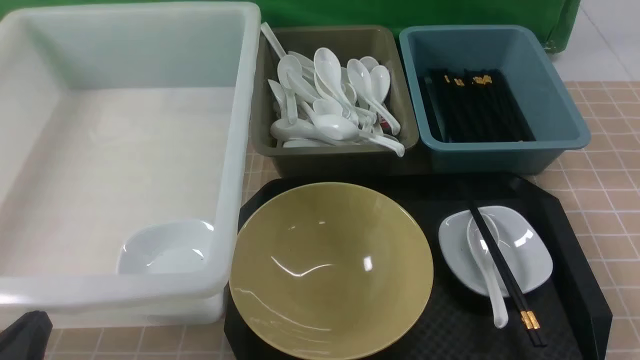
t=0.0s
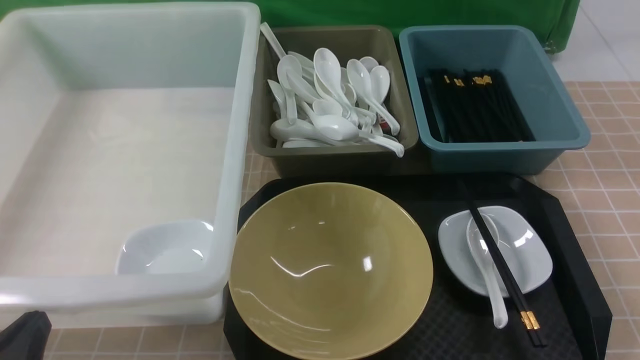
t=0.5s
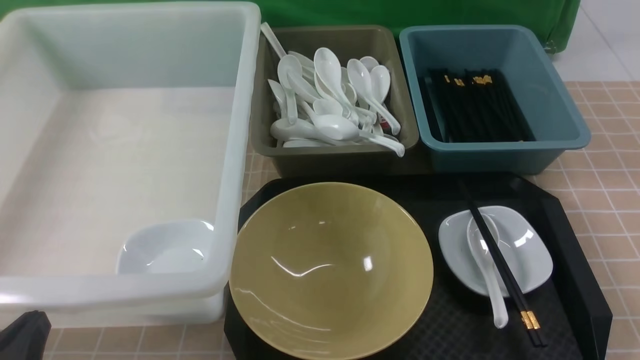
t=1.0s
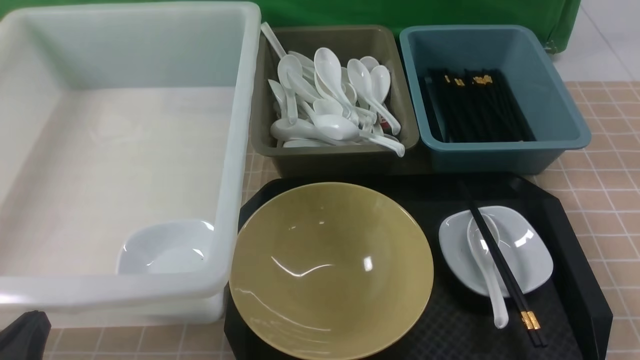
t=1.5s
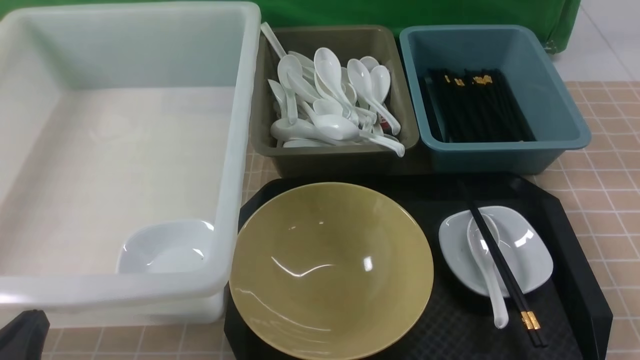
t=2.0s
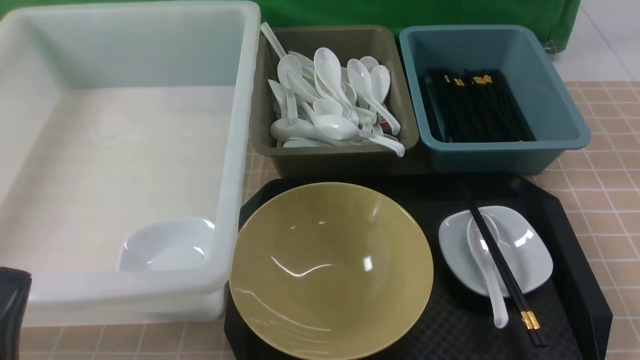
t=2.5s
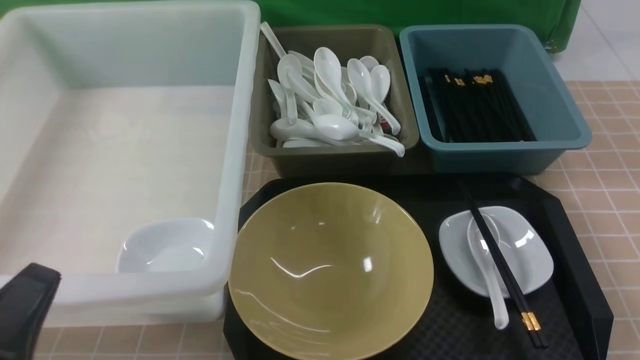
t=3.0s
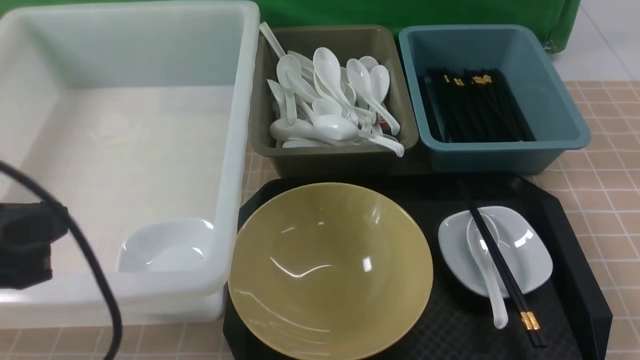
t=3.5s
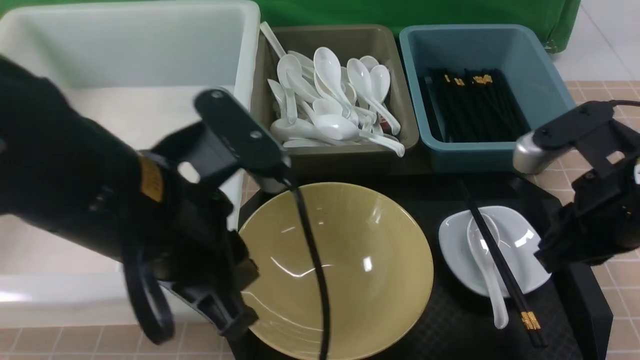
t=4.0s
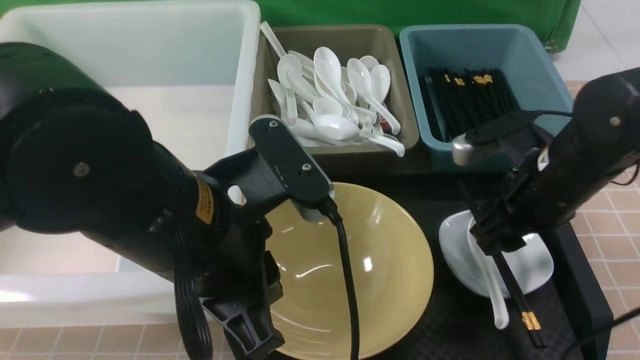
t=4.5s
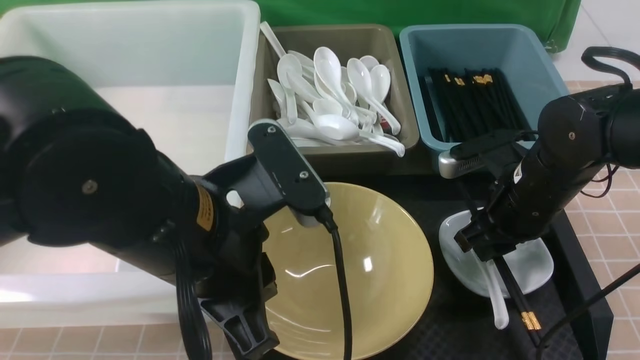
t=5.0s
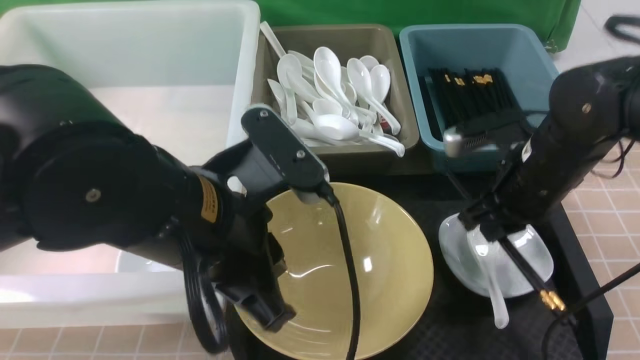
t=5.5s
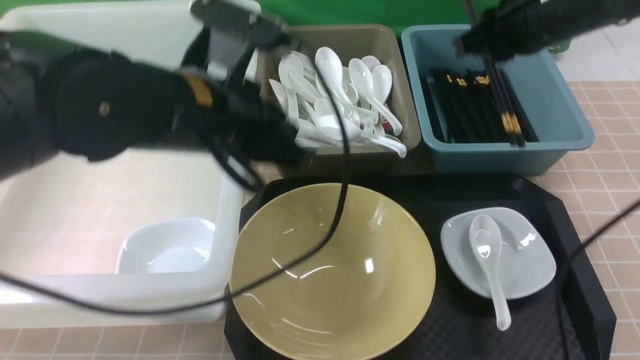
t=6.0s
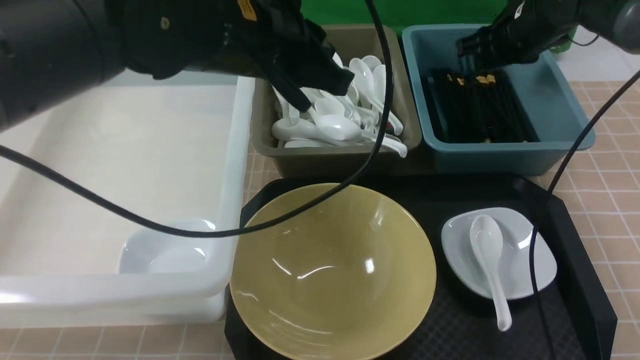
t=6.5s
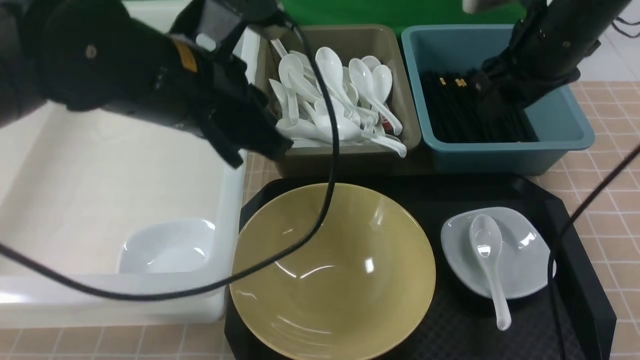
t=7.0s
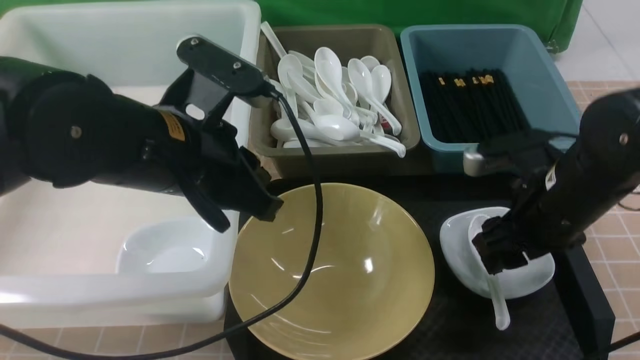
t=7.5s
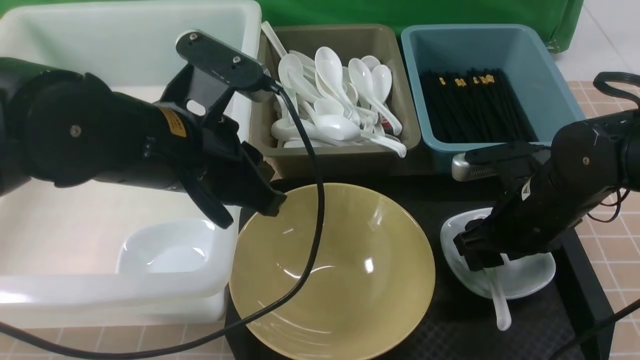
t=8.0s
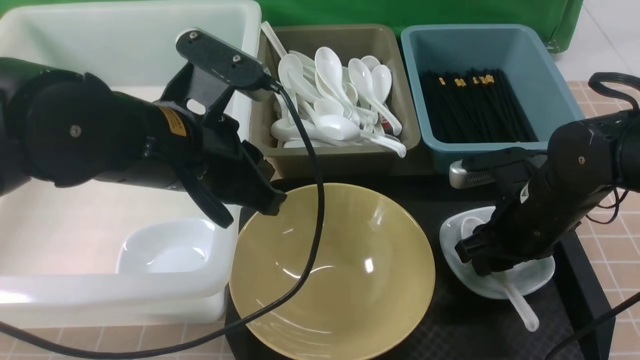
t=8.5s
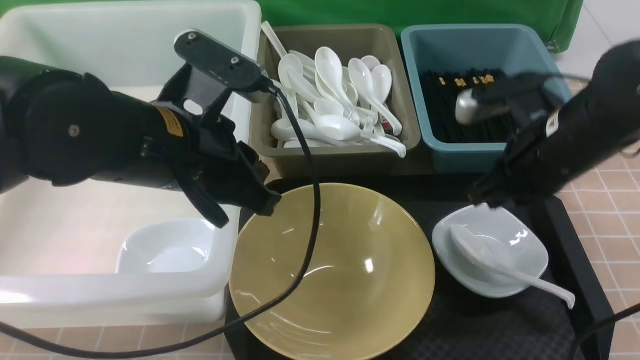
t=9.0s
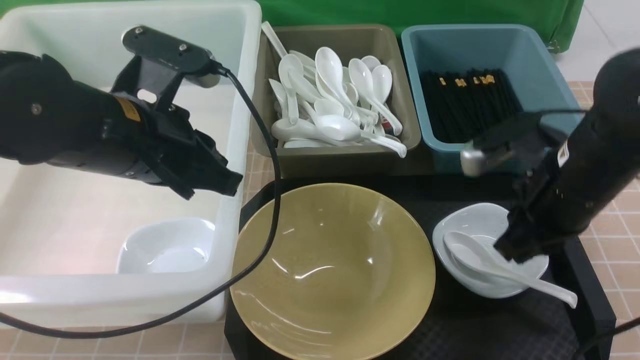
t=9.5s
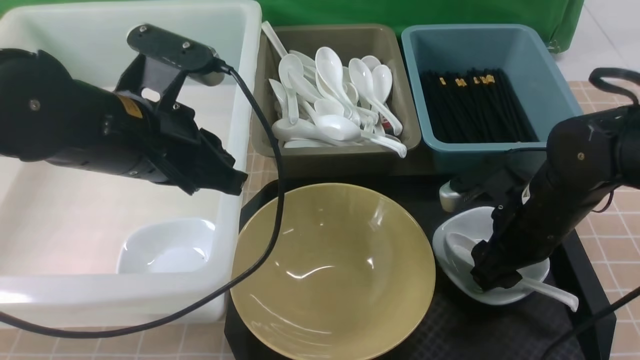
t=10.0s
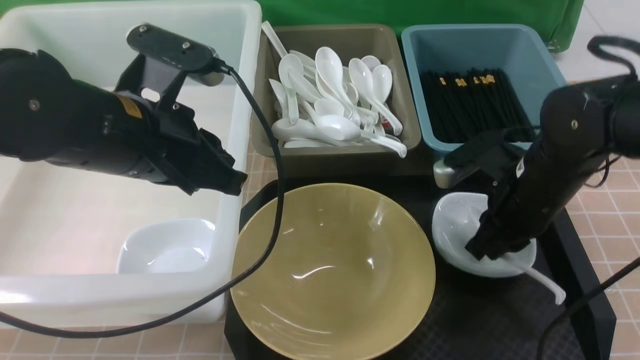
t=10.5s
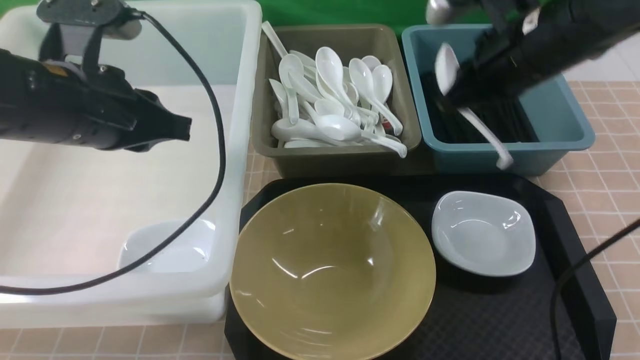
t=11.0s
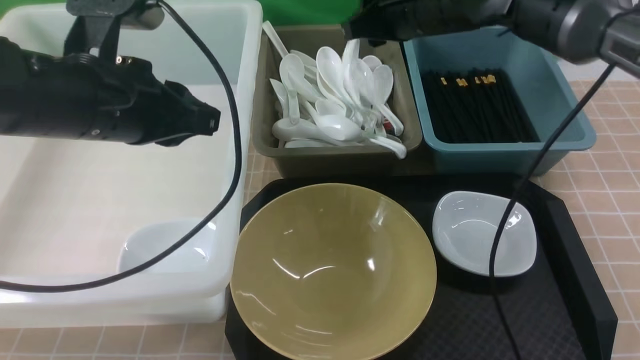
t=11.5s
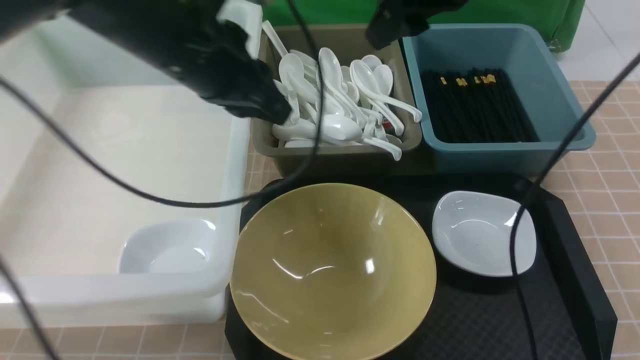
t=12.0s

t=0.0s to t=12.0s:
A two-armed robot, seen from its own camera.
Task of the whole recording: on brown table put chopsticks spoon bowls plates into blue grey white boxes.
Step, t=0.0s to t=5.5s: use the right arm to grab the chopsticks.
Step, t=6.0s to t=6.5s: use the right arm to put the chopsticks into the small storage box on the right.
Step, t=7.0s to t=10.5s: use the right arm to grab the soup spoon in the middle.
Step, t=11.0s to t=11.5s: use the right arm to put the soup spoon into the small storage box in the middle.
t=0.0s to t=2.0s: The two grippers keep their place.
t=2.0s to t=4.0s: The right gripper heads forward, upward and to the left, covering roughly 20 cm. The left gripper moves upward, to the right and forward, roughly 25 cm.
t=4.0s to t=6.0s: The left gripper travels forward by approximately 10 cm, while the right gripper shifts roughly 15 cm forward, and opens and closes again.
t=6.0s to t=8.0s: The right gripper shifts roughly 20 cm downward and backward, and opens.
t=8.0s to t=10.0s: The right gripper reaches approximately 10 cm upward, then returns, and closes and opens again.
t=10.0s to t=12.0s: The right gripper shifts about 25 cm upward and forward, and closes, then reopens. The left gripper heads forward, covering roughly 10 cm.

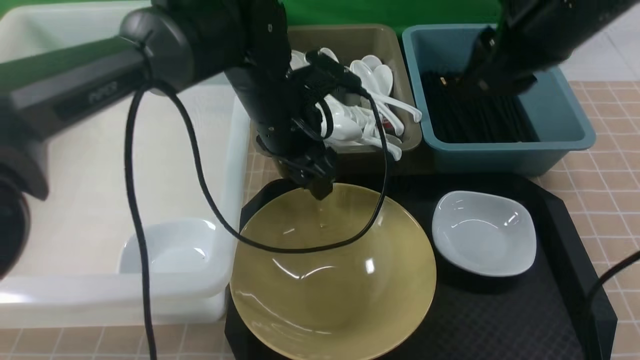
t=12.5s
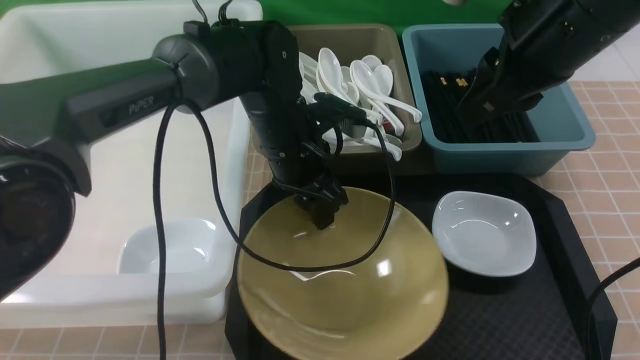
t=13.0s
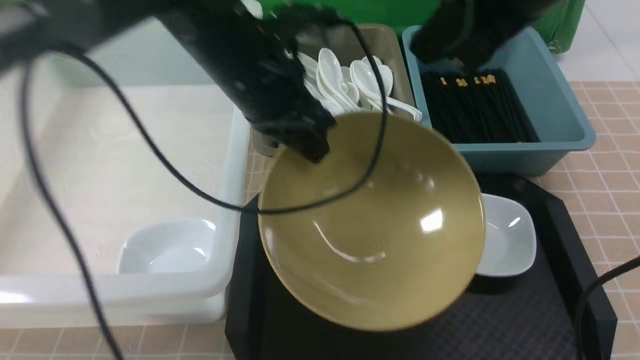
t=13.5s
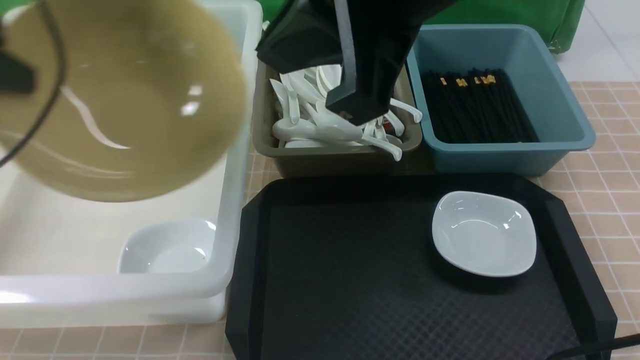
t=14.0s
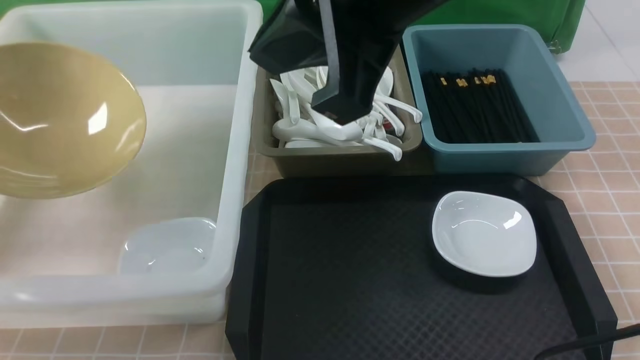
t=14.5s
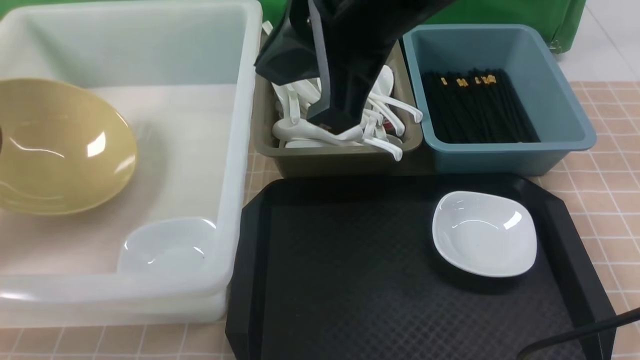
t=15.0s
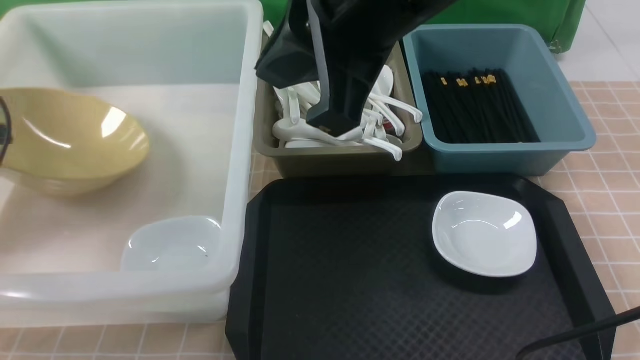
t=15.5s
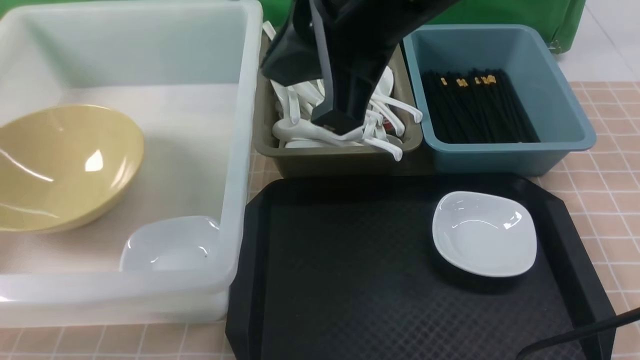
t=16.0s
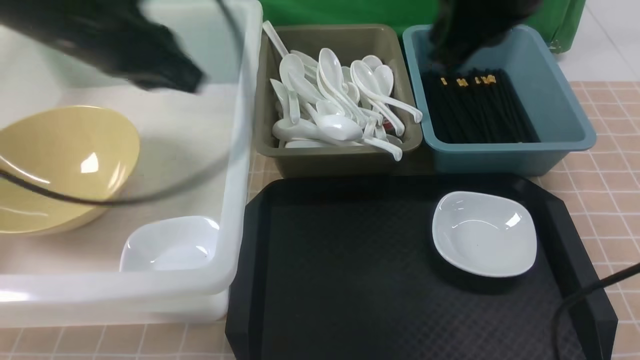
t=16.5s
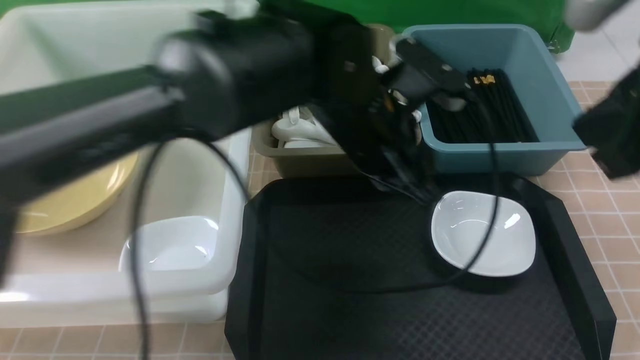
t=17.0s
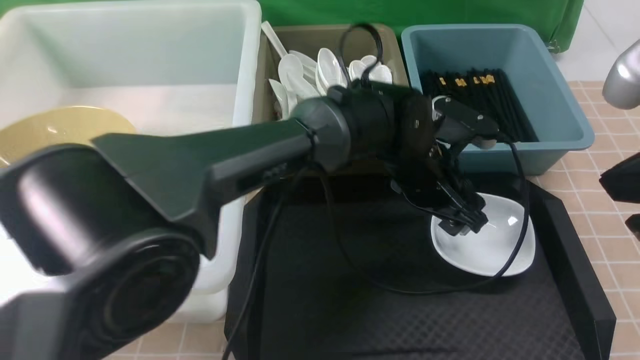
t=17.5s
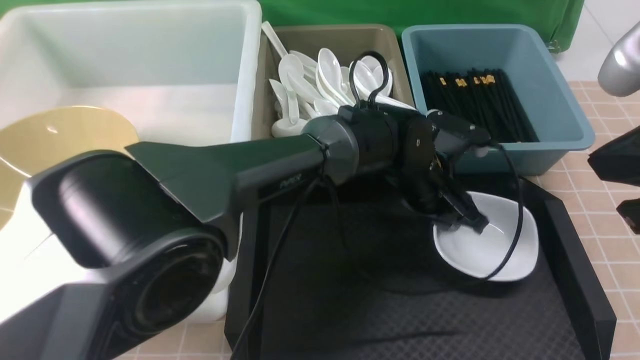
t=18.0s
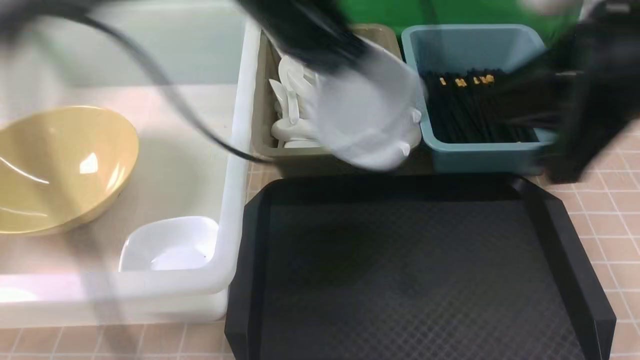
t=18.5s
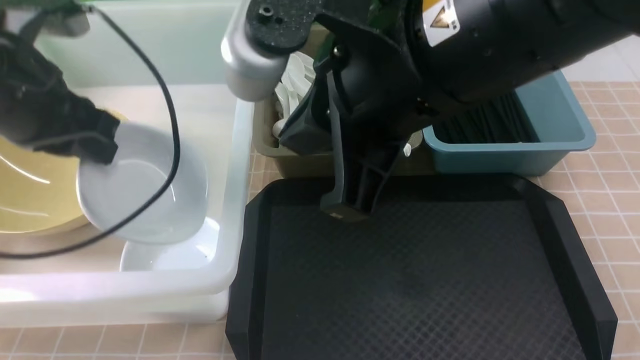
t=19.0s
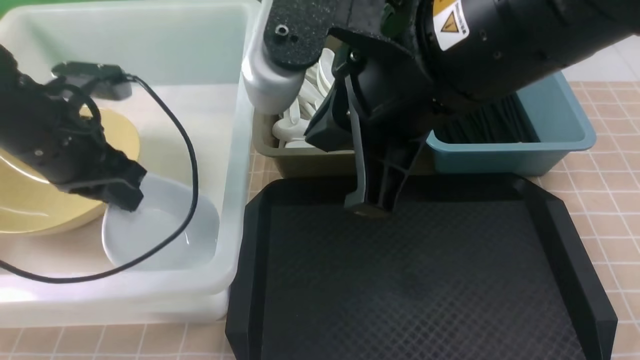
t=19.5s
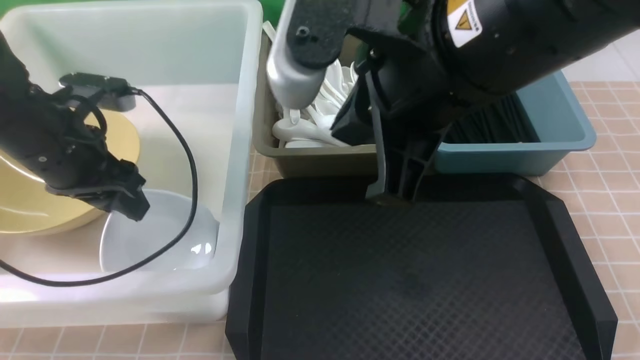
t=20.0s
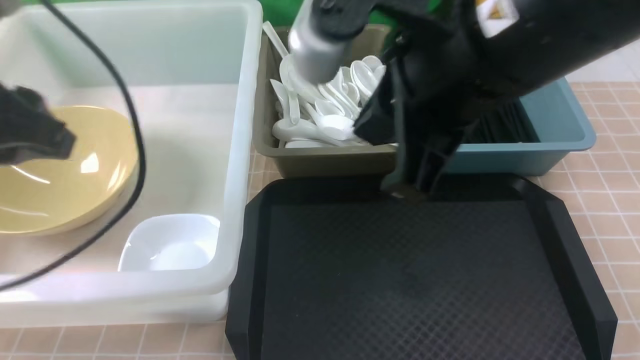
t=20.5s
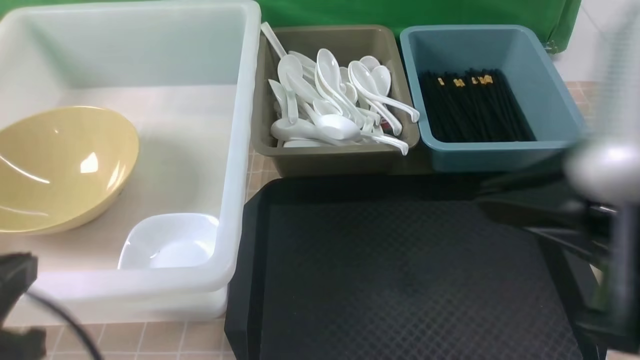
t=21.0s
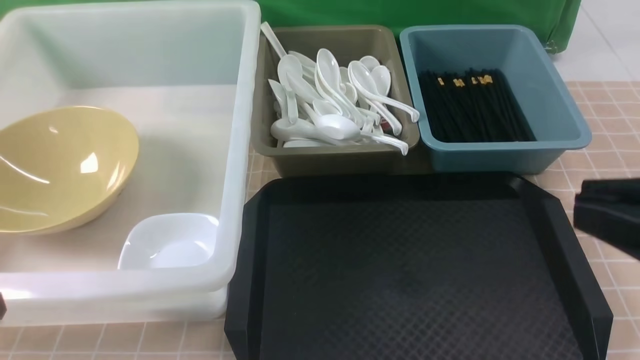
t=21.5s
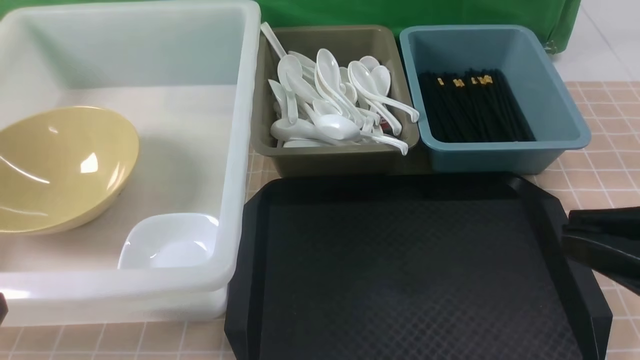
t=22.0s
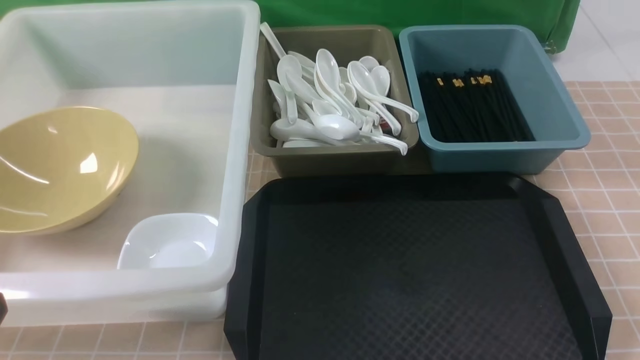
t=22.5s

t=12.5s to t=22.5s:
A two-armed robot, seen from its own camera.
Task of the whole recording: on brown table put chopsticks spoon bowls plates into blue grey white boxes.
Step, t=13.5s to t=16.0s: use the left arm to put the noodle bowl into the large storage box on the left.
Step, t=16.5s to t=18.0s: use the left arm to grab the plate.
Step, t=18.5s to t=20.5s: use the left arm to put the plate into the large storage box on the left.
t=12.5s to t=14.5s: The left gripper shifts about 40 cm to the left, and closes up. The right gripper moves to the left, backward and upward, some 15 cm, and closes its fingers.
t=14.5s to t=16.5s: The left gripper shifts about 25 cm to the right, and opens, then closes once more. The right gripper travels to the right and forward by approximately 10 cm.
t=16.5s to t=18.5s: The left gripper moves some 25 cm to the right and comes back, and opens, then closes again, while the right gripper is displaced backward by approximately 10 cm.
t=18.5s to t=20.5s: The right gripper shifts roughly 5 cm to the left. The left gripper heads to the left and backward, covering about 20 cm, and opens its fingers.
t=20.5s to t=22.5s: The right gripper heads to the right, downward and backward, covering about 30 cm; the left gripper moves backward and downward, approximately 20 cm, and closes.
